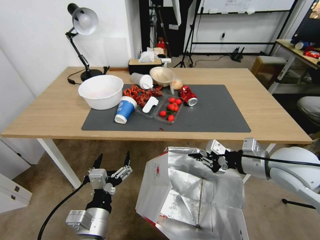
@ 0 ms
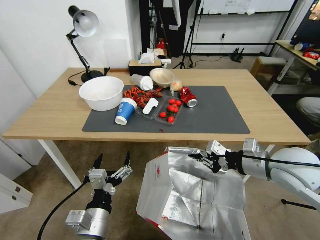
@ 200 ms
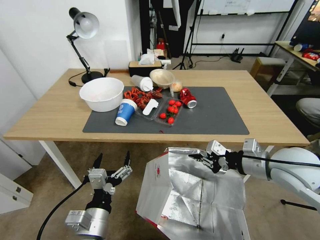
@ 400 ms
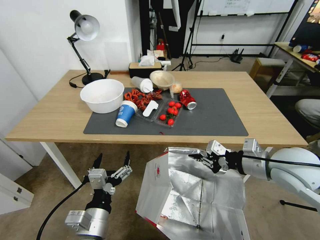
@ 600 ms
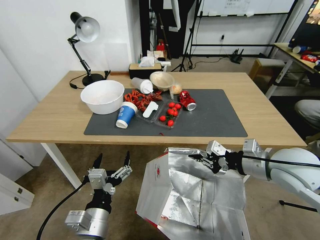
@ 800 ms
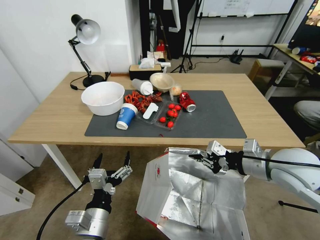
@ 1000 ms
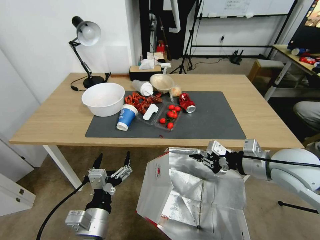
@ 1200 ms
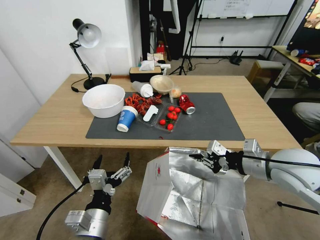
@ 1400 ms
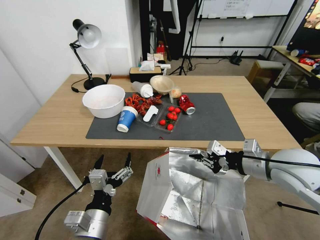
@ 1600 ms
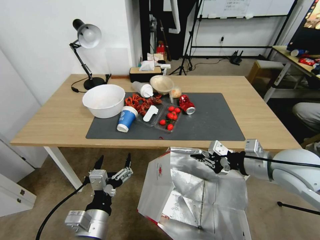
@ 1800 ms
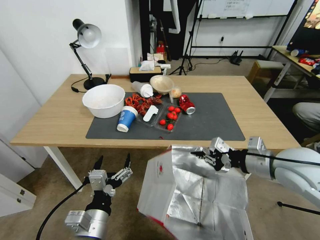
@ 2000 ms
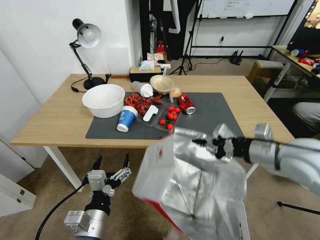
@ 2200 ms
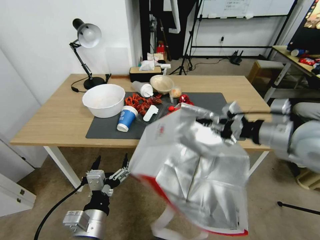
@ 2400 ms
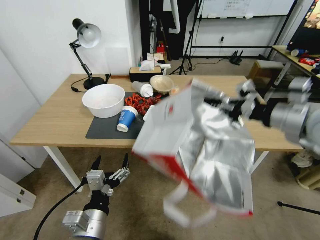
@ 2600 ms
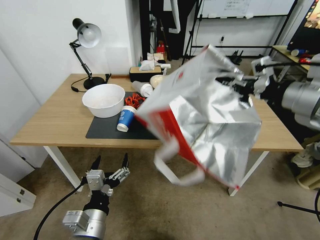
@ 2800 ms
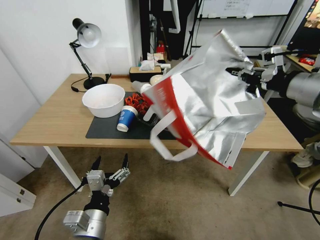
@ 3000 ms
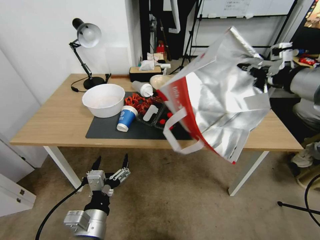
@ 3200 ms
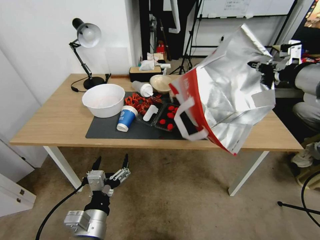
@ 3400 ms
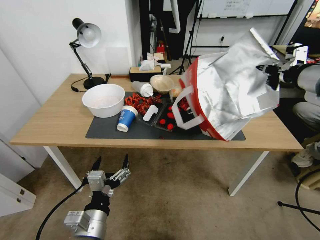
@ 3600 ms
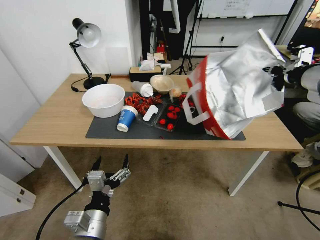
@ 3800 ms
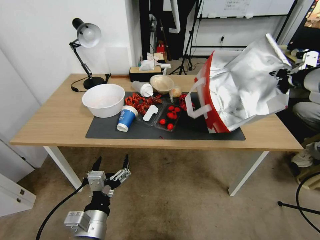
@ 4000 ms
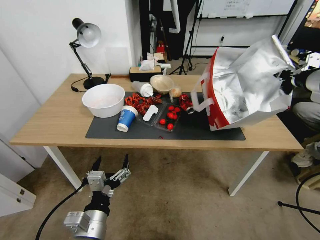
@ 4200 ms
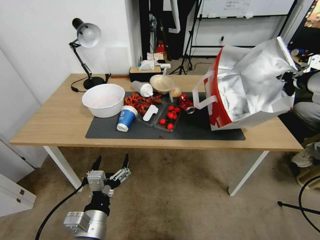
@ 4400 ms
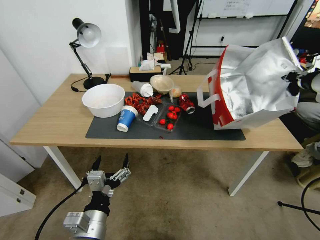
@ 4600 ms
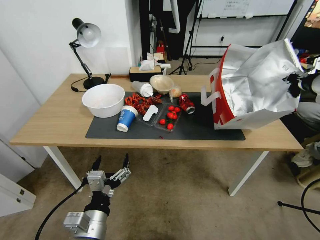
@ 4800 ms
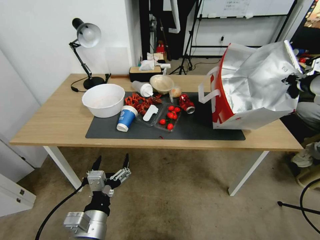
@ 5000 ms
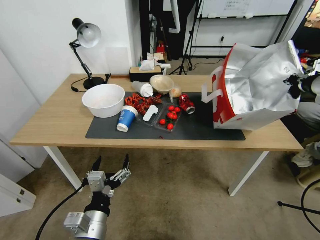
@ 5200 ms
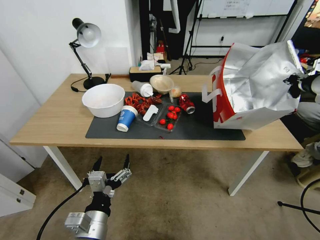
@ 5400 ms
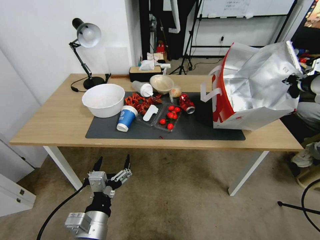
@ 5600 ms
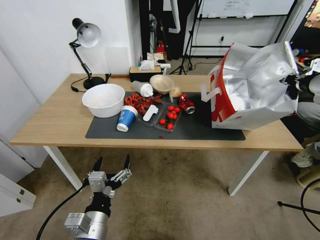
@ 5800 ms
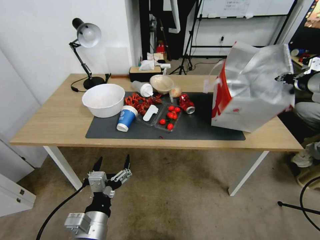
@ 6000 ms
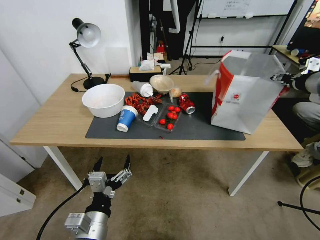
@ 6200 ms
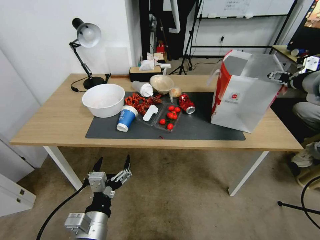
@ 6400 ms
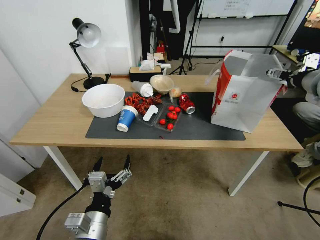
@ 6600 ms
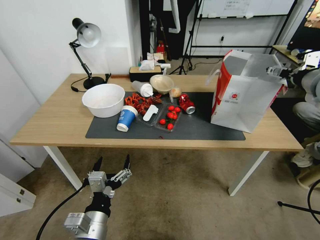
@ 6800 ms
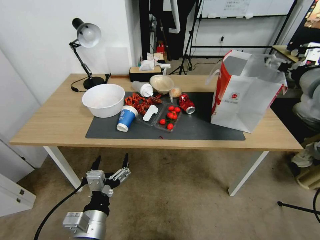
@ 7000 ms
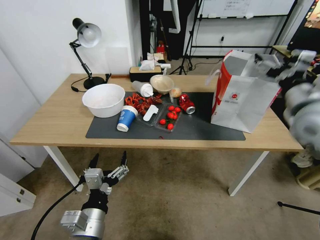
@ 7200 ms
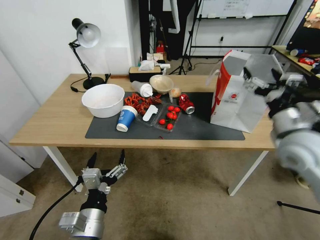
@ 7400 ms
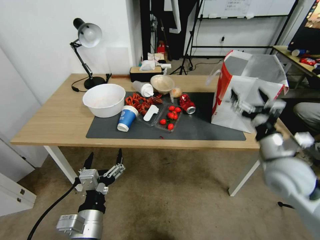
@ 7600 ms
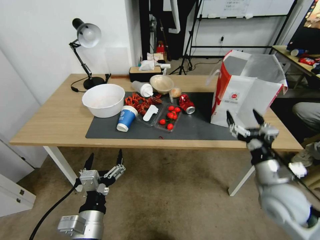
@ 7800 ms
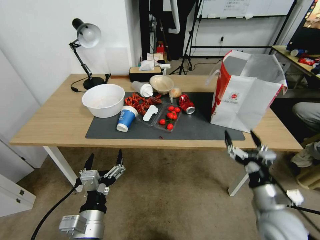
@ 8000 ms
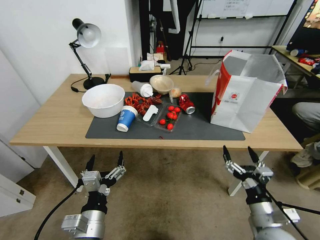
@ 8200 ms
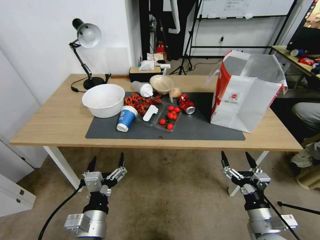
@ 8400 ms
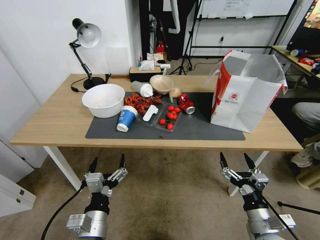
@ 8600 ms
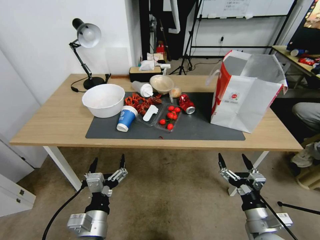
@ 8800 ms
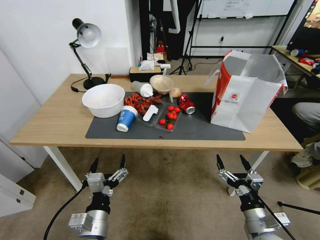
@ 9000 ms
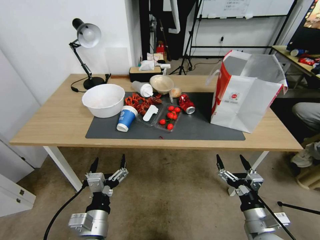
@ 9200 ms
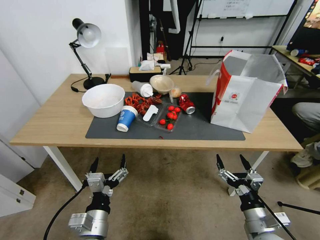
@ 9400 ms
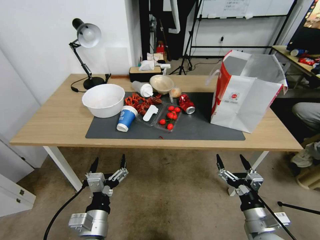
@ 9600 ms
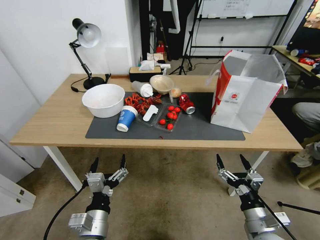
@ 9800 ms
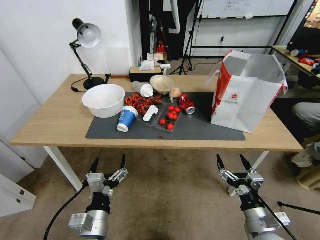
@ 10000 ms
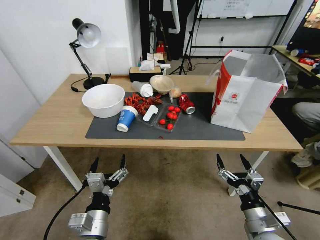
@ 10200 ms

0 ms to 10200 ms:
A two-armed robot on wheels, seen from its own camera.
Task of the whole recording: Pick up the food delivery bag from the floor and place it on the table.
1400 ms to 3000 ms: The right gripper shifts approximately 15 cm upward.
3000 ms to 4400 ms: The right gripper heads to the right and forward, covering approximately 10 cm.
4400 ms to 5800 ms: The grippers stay close to where they were, moving slightly.
5800 ms to 7200 ms: The right gripper is displaced to the left, downward and backward by some 10 cm, and opens.
7200 ms to 8800 ms: The right gripper goes some 35 cm downward and backward.
8800 ms to 10200 ms: Neither gripper changes place.

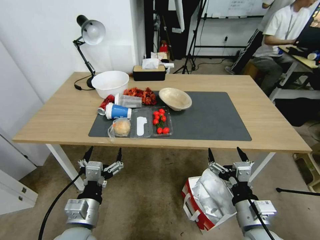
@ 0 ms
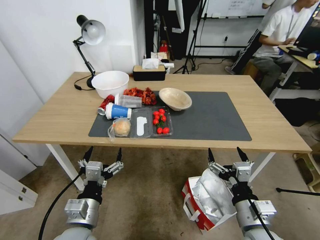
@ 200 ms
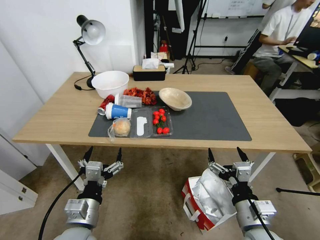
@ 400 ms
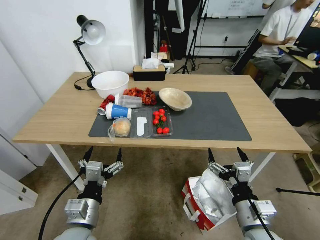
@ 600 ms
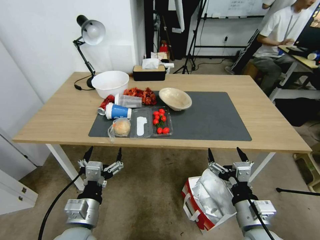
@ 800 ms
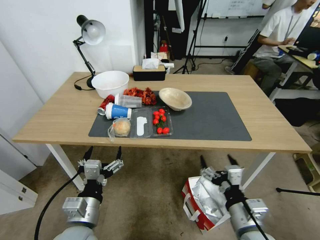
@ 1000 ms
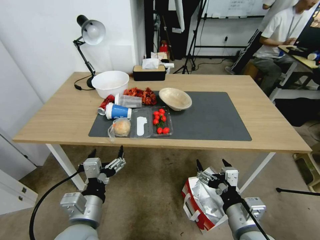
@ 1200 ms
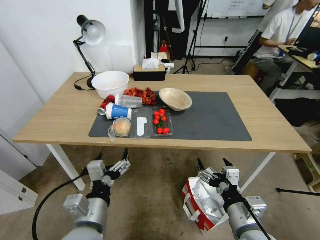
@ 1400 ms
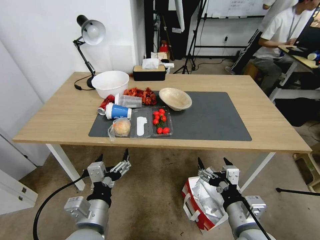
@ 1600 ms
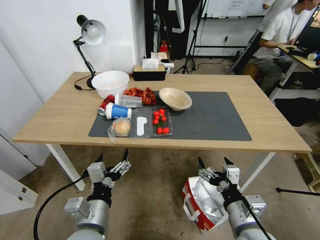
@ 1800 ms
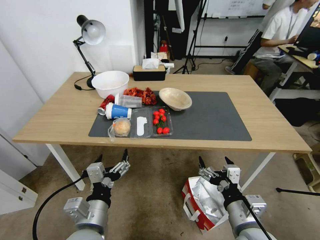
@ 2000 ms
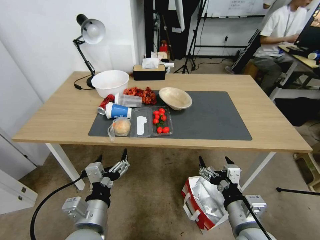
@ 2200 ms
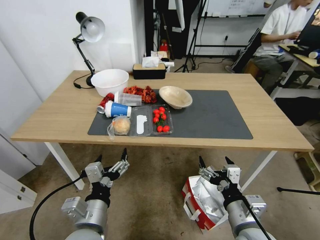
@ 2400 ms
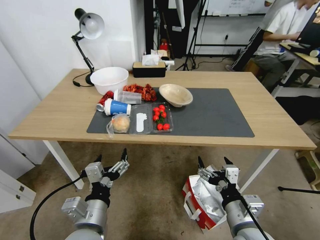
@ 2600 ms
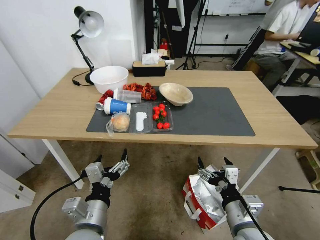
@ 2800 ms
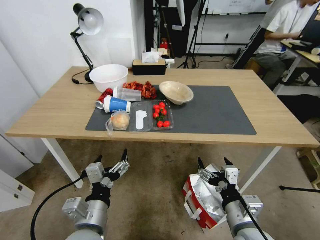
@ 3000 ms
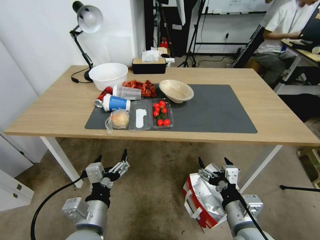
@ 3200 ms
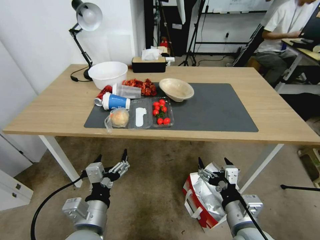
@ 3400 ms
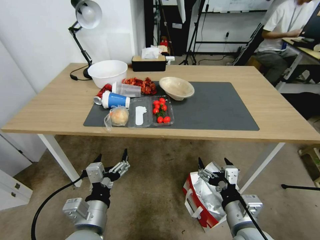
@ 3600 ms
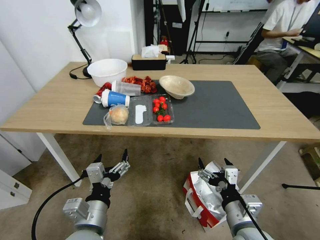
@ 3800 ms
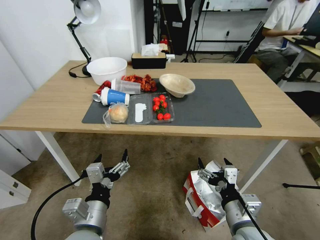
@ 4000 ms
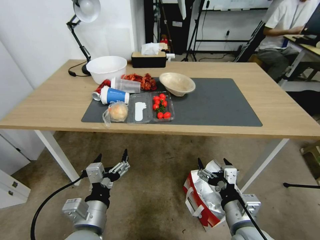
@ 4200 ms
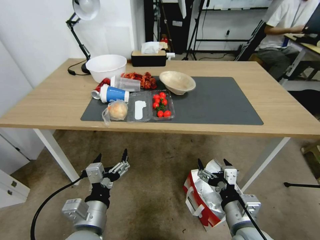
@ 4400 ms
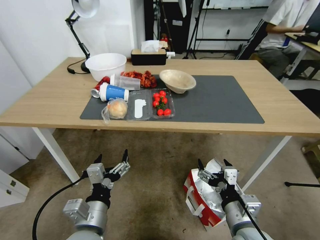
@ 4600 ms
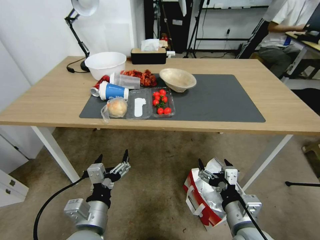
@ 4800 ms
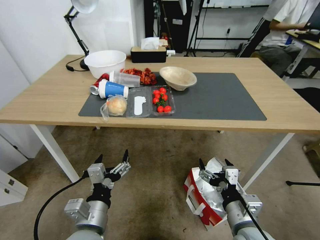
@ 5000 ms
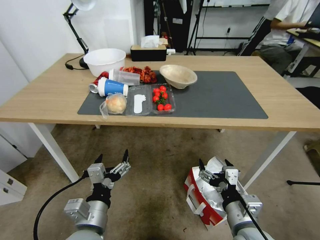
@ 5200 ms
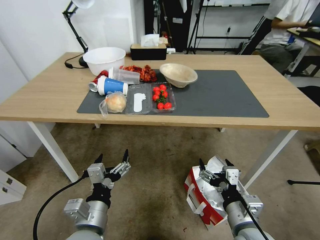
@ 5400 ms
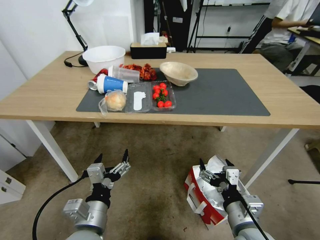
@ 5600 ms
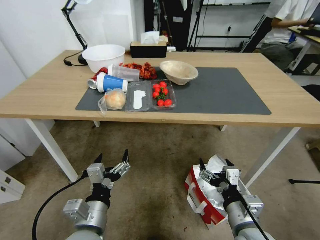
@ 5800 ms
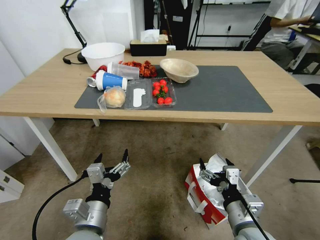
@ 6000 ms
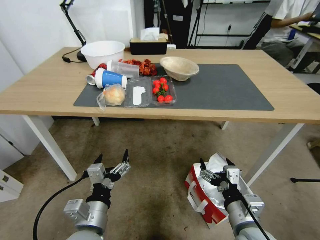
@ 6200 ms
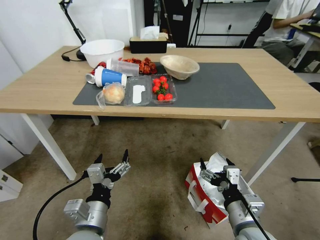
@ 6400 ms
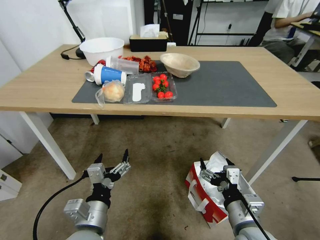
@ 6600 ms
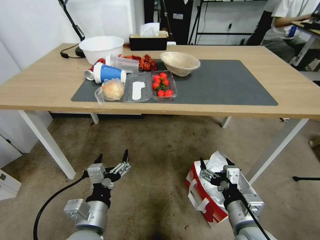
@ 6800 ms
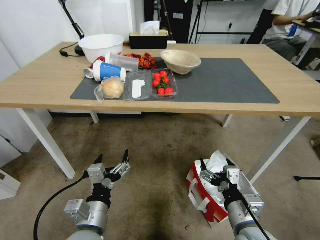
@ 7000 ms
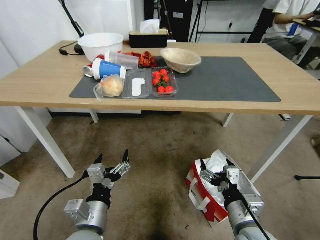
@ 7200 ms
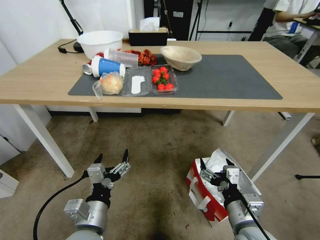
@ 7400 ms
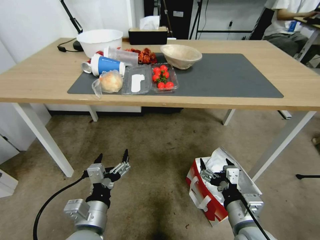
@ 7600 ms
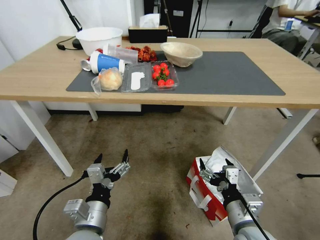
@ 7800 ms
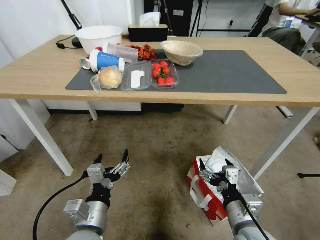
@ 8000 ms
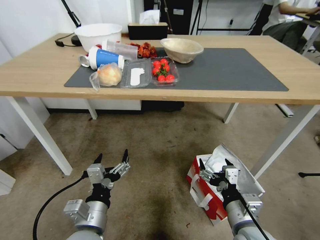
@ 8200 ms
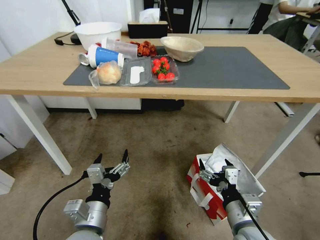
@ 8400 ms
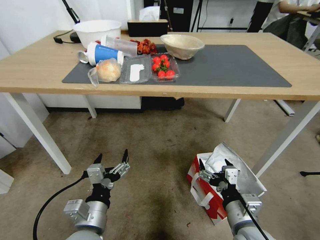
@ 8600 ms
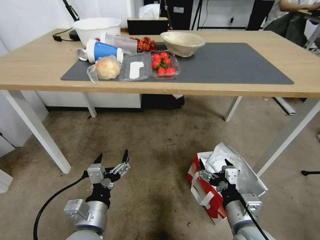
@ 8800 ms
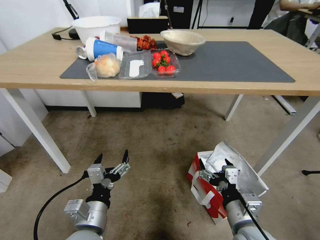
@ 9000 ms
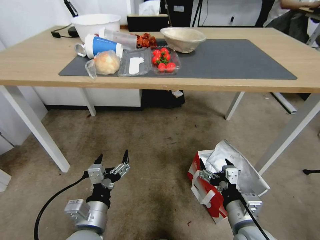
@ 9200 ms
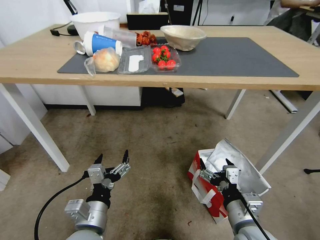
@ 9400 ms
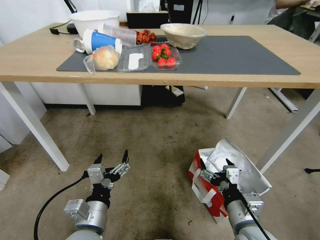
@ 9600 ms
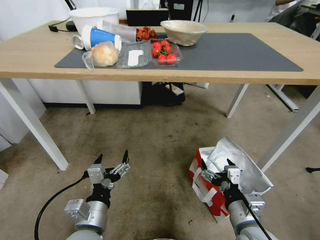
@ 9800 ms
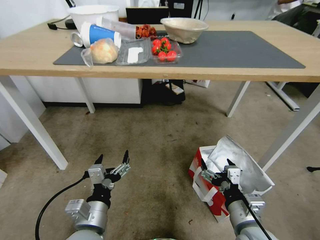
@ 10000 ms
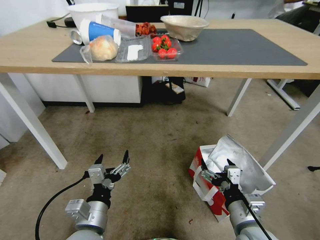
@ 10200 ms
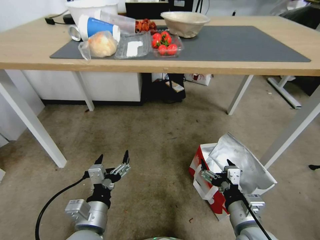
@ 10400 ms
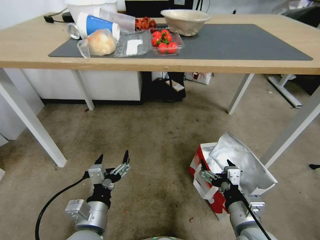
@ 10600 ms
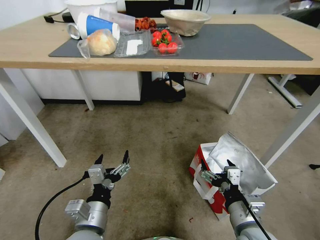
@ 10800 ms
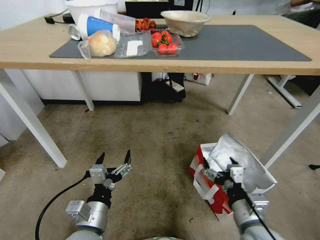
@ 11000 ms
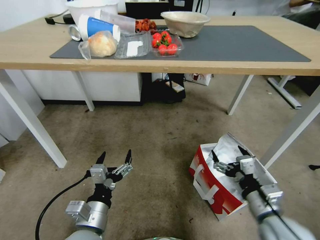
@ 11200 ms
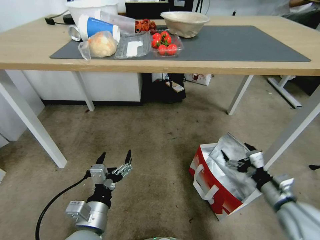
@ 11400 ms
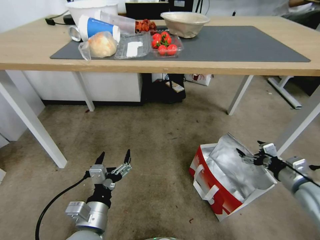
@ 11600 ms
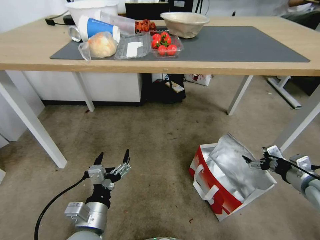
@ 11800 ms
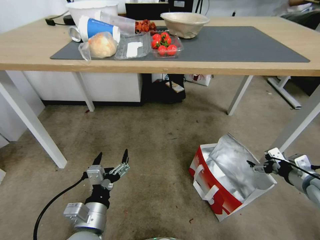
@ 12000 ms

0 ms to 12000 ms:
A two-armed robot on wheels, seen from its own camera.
Task of the whole recording: Pick up the food delivery bag from the floor and place it on the table.
10400 ms to 12000 ms: The right gripper shifts approximately 25 cm to the right and forward.
